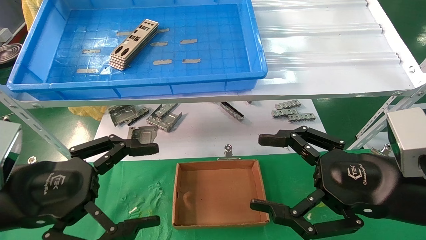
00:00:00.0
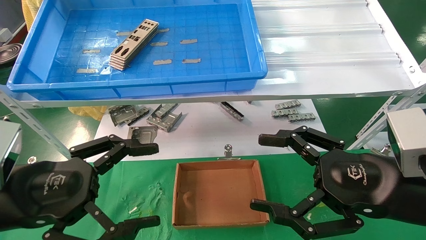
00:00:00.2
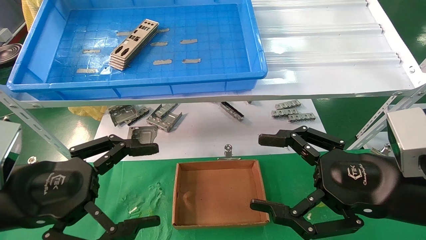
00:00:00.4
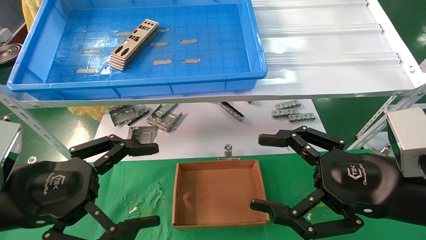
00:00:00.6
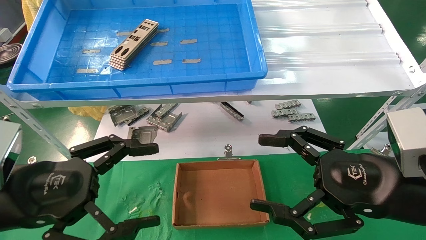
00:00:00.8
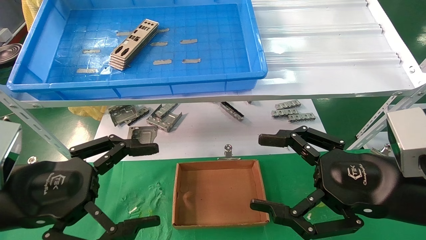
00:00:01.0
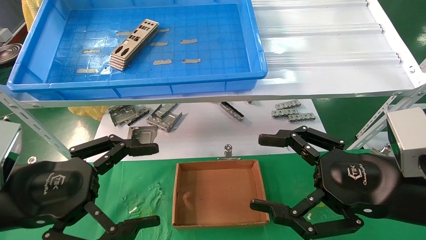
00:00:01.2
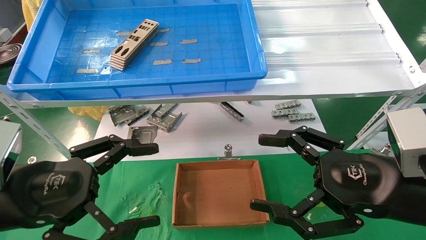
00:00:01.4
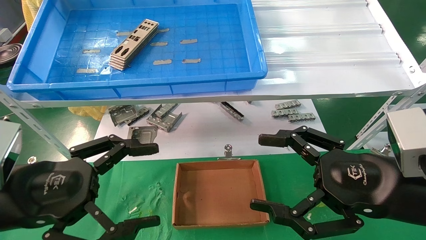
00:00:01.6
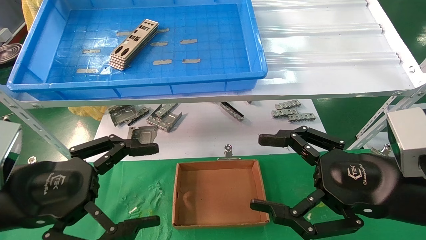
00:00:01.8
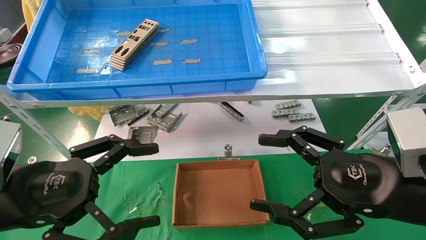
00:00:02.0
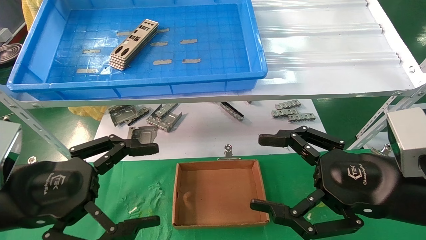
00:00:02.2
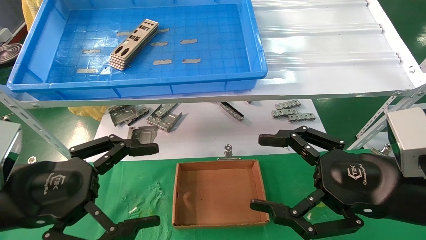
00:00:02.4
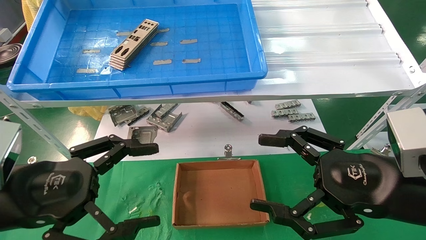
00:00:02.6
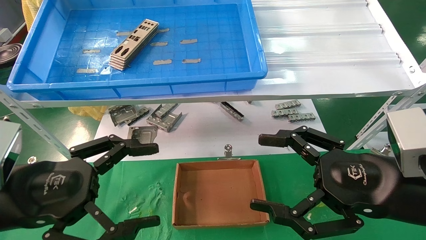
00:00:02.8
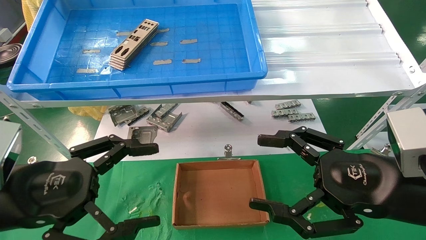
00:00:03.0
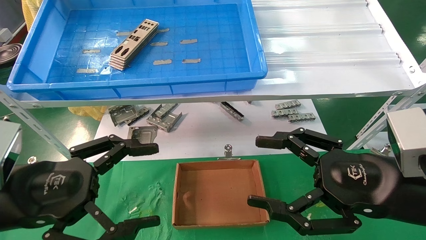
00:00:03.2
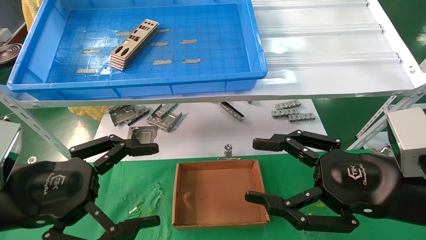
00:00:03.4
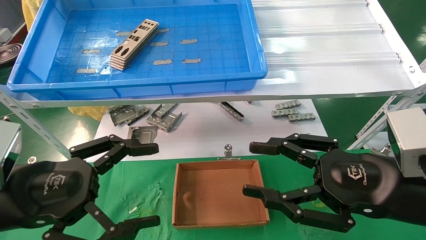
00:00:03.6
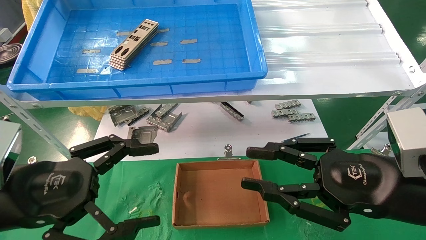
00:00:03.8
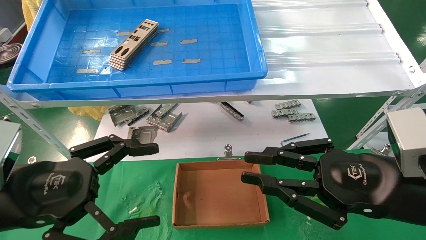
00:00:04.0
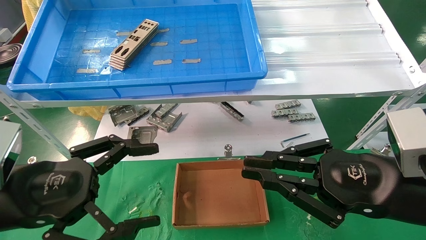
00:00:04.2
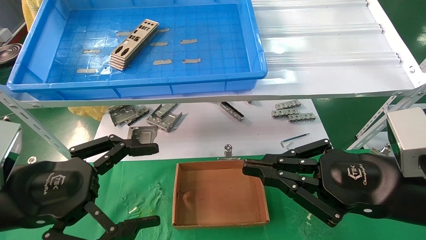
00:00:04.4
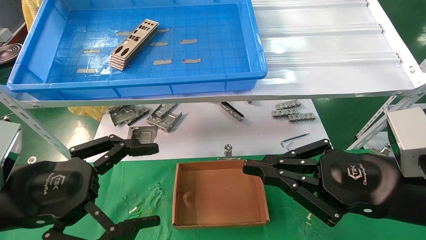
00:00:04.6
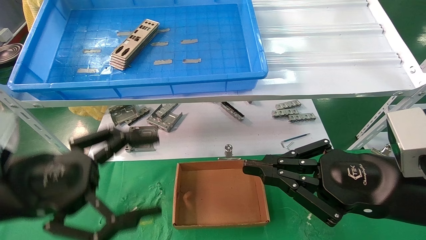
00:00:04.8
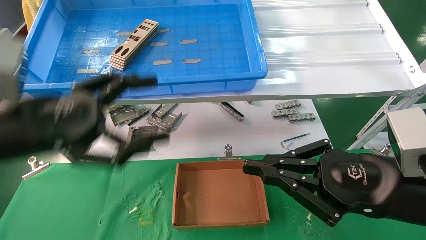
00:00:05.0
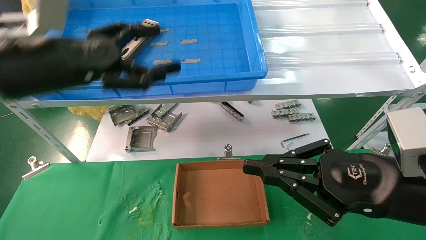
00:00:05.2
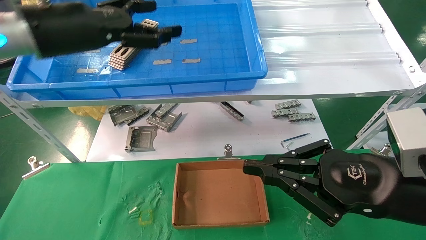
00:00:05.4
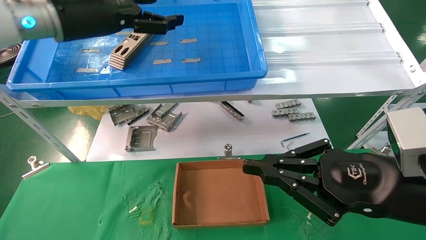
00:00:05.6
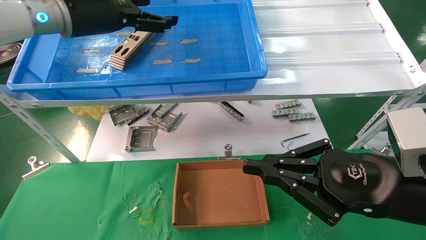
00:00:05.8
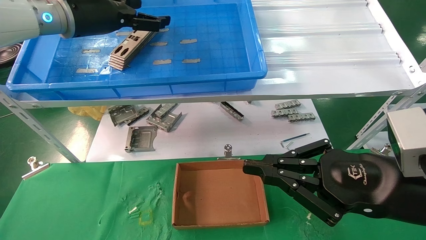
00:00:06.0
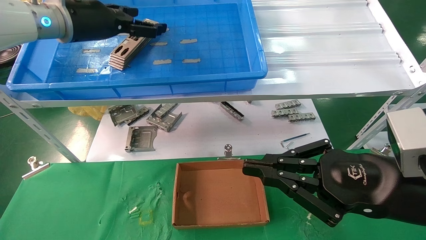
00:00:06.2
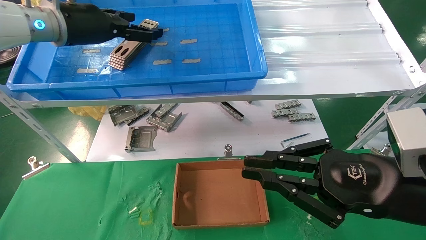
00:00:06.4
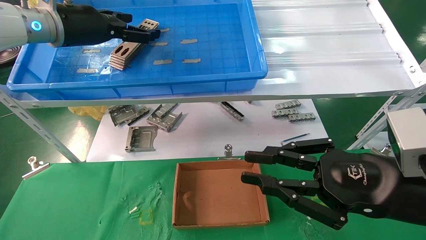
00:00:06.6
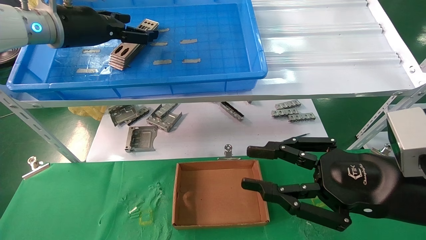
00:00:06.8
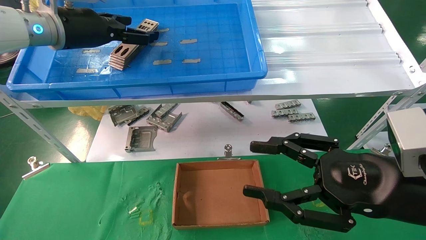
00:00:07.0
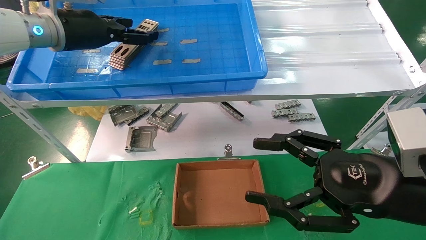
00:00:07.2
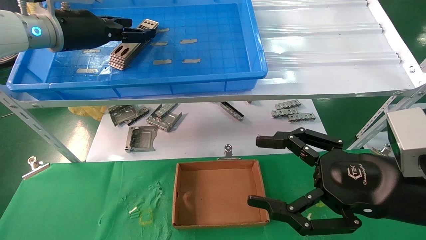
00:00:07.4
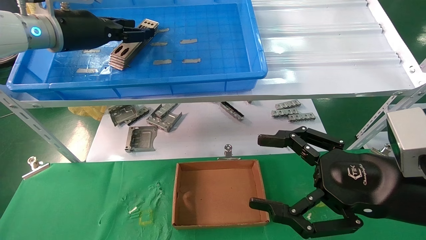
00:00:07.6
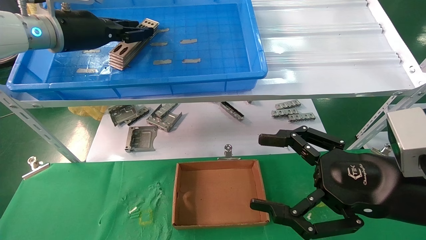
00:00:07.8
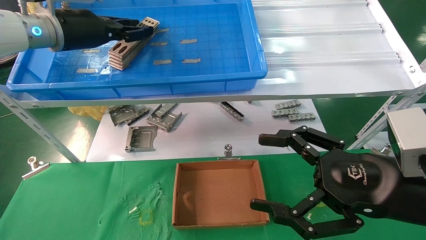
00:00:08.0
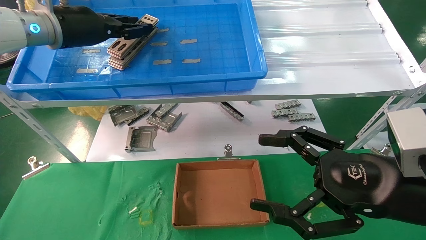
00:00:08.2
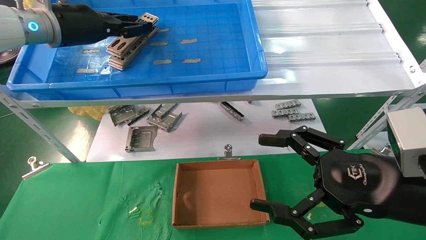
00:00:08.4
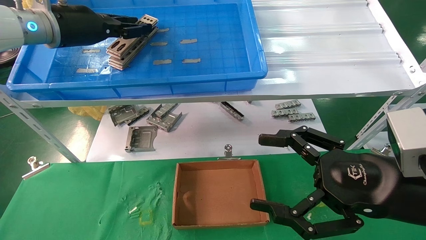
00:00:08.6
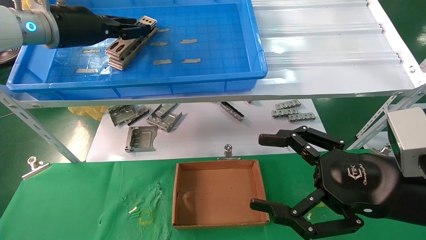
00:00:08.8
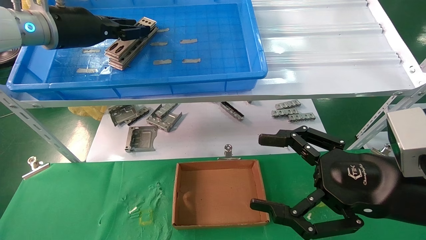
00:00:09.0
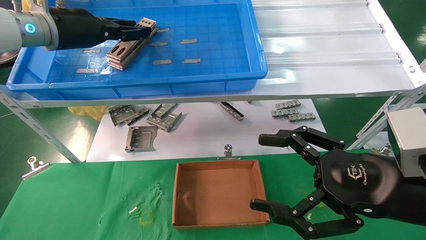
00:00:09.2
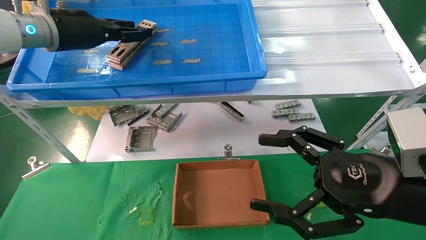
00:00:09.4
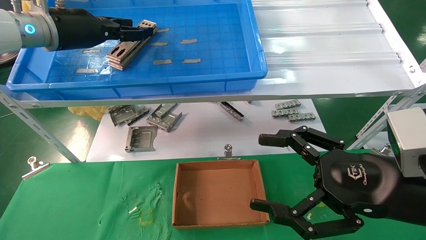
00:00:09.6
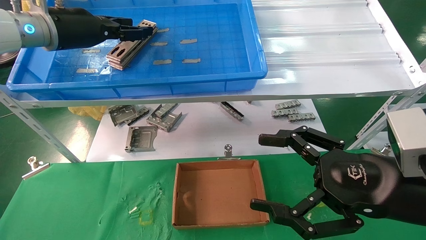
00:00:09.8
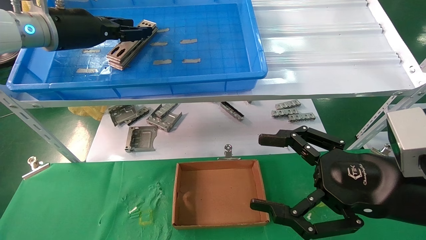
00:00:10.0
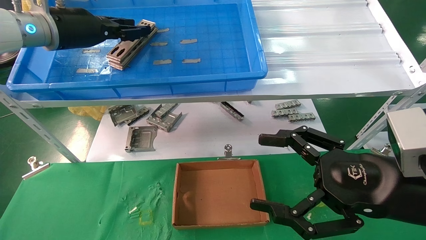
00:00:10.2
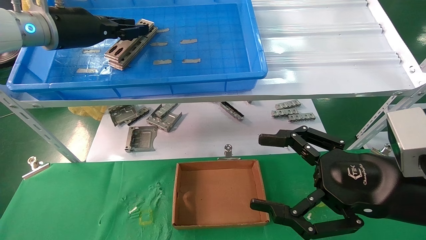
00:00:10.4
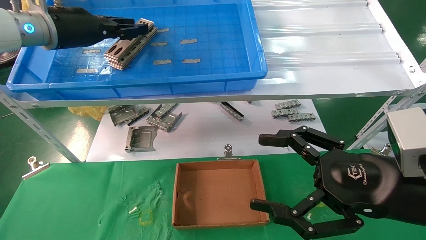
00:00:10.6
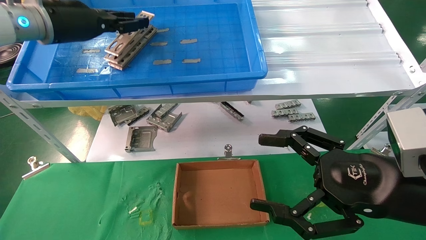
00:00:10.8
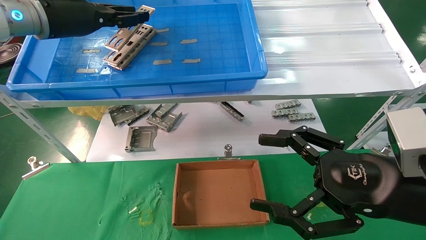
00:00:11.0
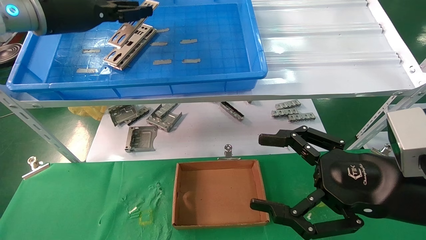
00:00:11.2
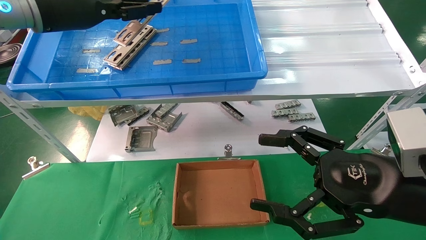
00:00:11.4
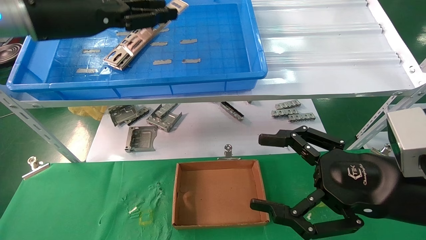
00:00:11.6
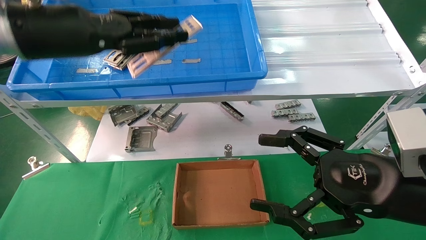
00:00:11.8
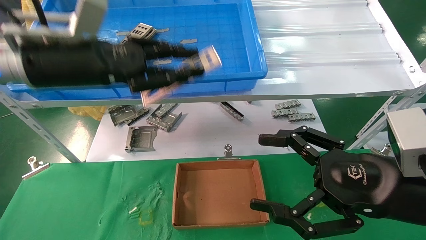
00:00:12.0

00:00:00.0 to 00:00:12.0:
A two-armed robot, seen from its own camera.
Task of the whole recording: pick up the parts on the tray and put them in the cardboard box.
Step, 00:00:05.2 to 00:00:10.6: Pick up the IO bracket from the container box.
00:00:00.0 to 00:00:03.0: Both grippers stay about where they are.
00:00:03.0 to 00:00:04.4: The right gripper closes.
00:00:04.4 to 00:00:06.0: The left gripper goes roughly 30 cm forward and upward.
00:00:06.0 to 00:00:07.6: The left gripper closes up. Meanwhile the right gripper opens.
00:00:07.6 to 00:00:09.0: The left gripper closes its fingers.
00:00:09.0 to 00:00:10.4: Both grippers stay put.
00:00:10.4 to 00:00:12.0: The left gripper heads backward and downward, covering approximately 10 cm.

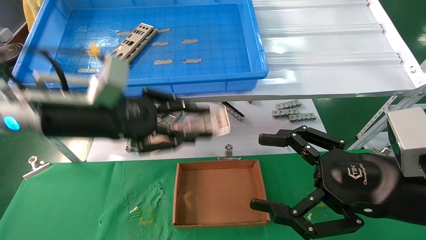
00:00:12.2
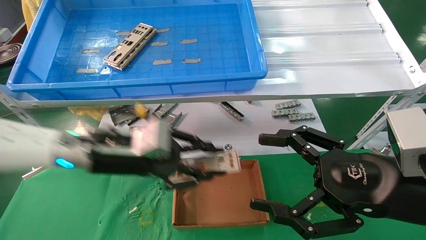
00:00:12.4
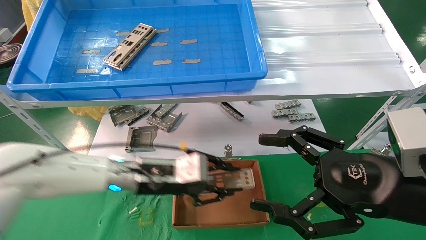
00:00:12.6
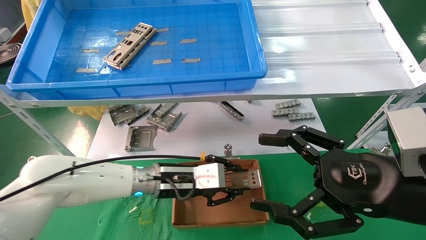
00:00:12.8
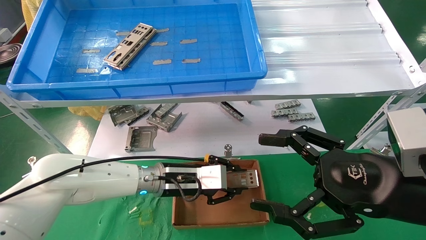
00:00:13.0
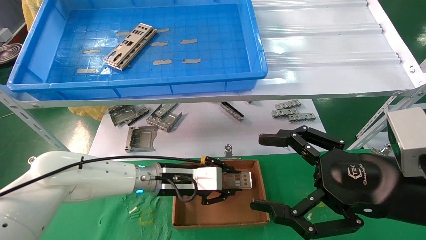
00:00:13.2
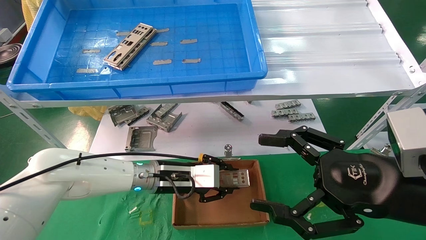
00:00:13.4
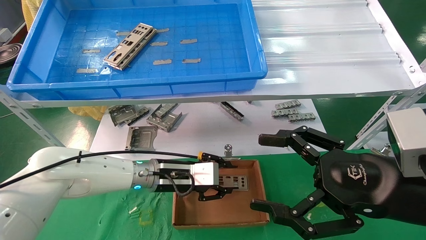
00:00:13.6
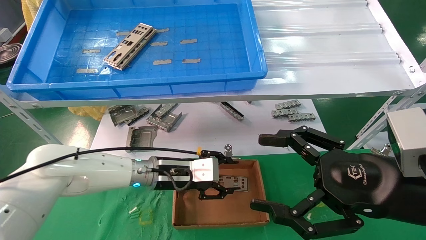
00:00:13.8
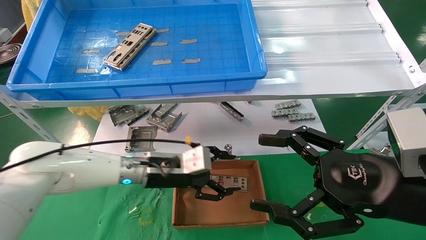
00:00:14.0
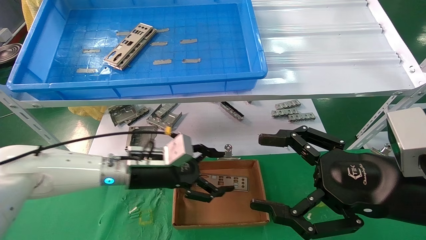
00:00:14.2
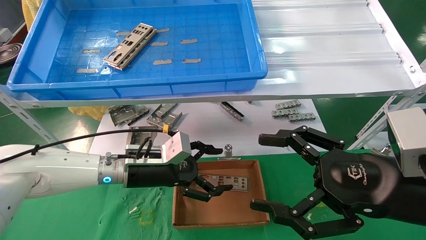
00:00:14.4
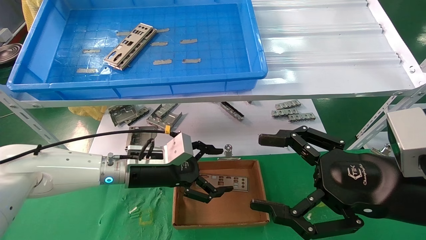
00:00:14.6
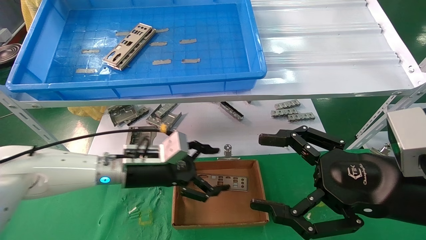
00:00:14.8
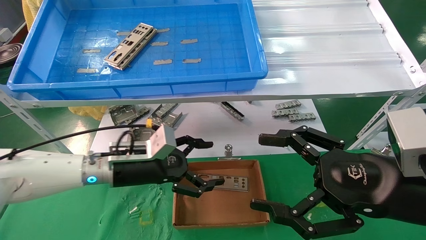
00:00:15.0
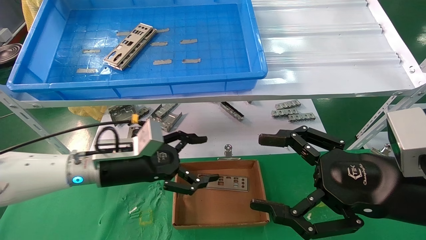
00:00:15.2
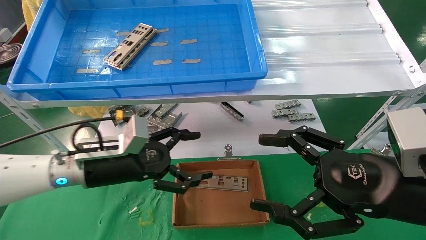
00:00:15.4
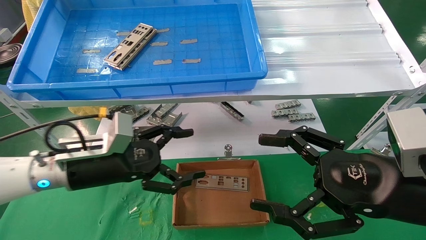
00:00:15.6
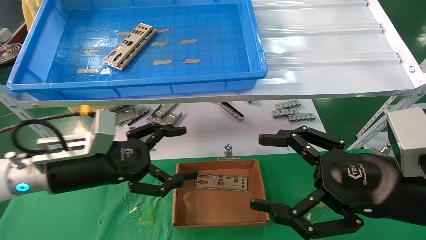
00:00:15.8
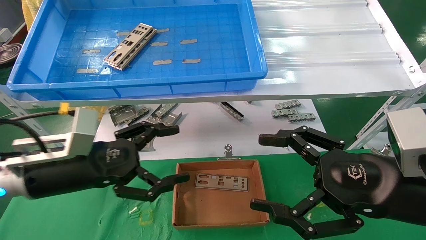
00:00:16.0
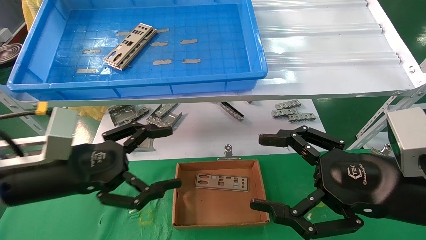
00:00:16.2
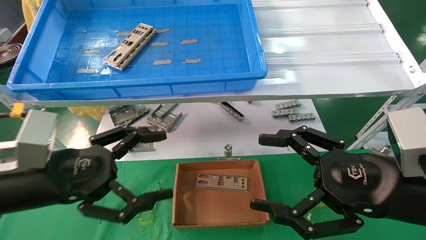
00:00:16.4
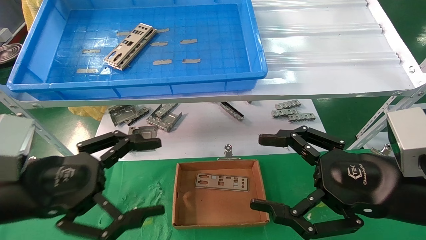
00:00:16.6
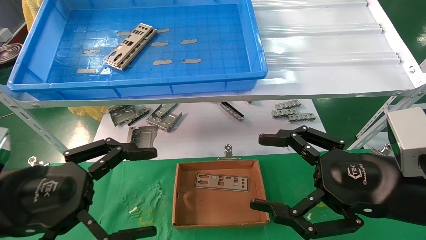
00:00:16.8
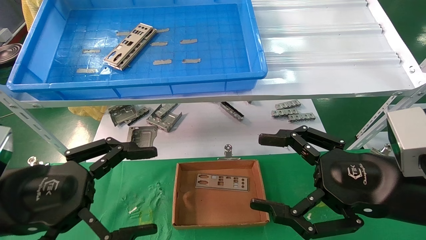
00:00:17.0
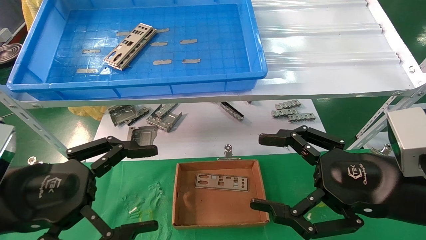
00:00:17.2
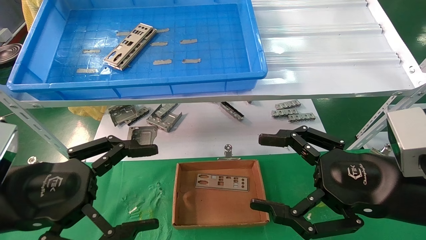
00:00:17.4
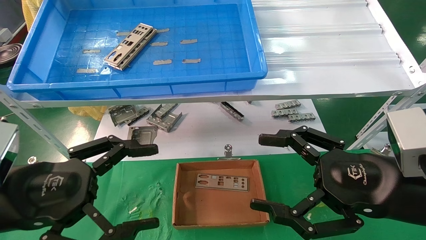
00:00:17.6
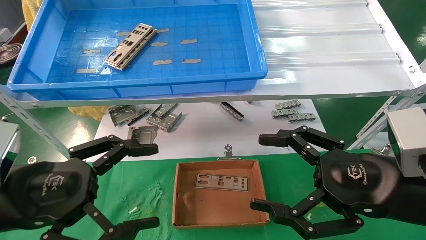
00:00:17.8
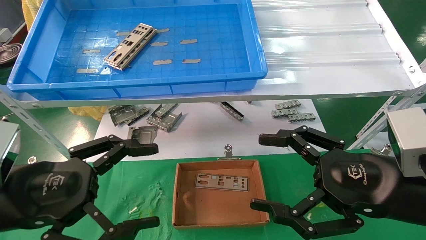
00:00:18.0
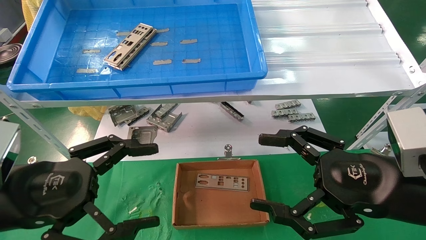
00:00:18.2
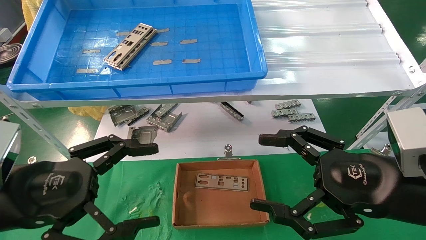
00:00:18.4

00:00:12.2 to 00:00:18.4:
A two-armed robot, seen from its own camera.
Task of the whole recording: pick up the parts on the tray and put them in the cardboard box.
00:00:12.2 to 00:00:13.8: The left gripper heads downward, to the right and forward, covering roughly 20 cm.
00:00:13.8 to 00:00:15.4: The left gripper goes roughly 10 cm to the left and backward, and opens its fingers.
00:00:15.4 to 00:00:16.8: The left gripper travels backward and to the left by about 15 cm.
00:00:16.8 to 00:00:18.4: The two grippers keep their place.
